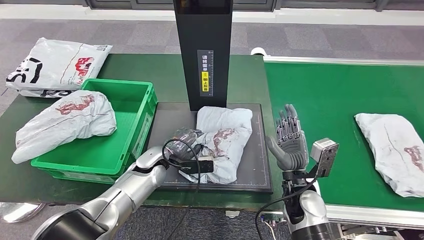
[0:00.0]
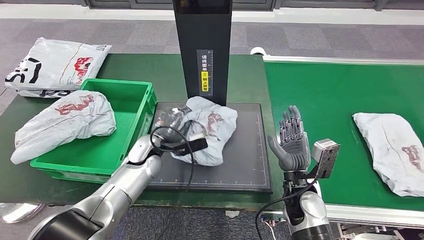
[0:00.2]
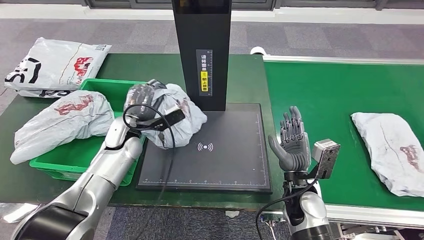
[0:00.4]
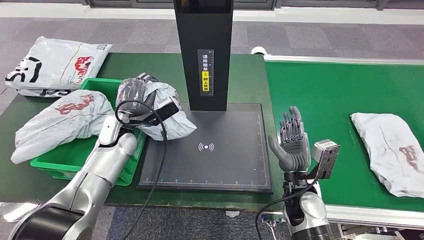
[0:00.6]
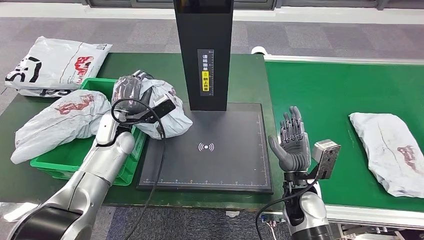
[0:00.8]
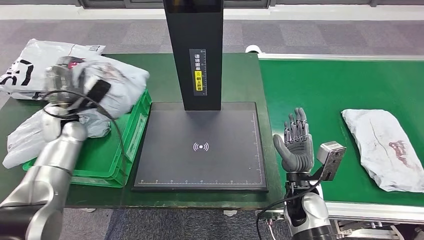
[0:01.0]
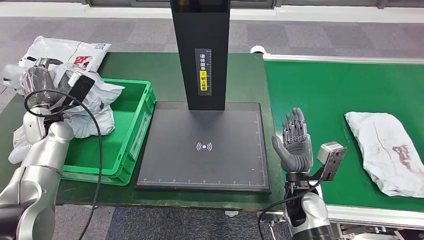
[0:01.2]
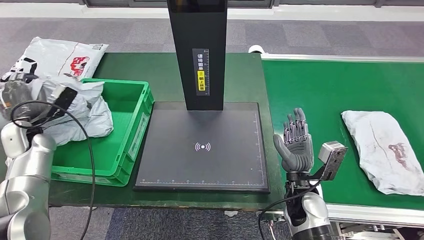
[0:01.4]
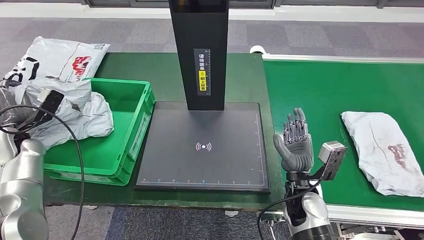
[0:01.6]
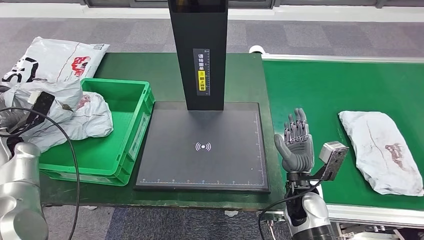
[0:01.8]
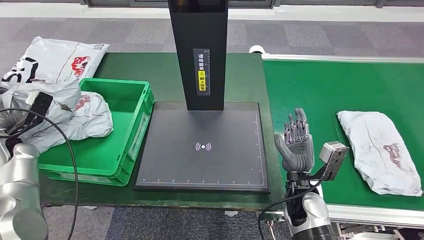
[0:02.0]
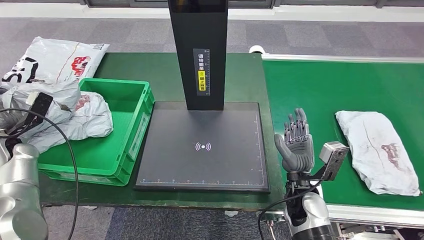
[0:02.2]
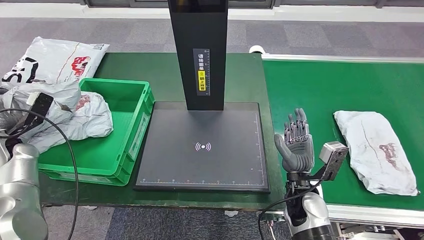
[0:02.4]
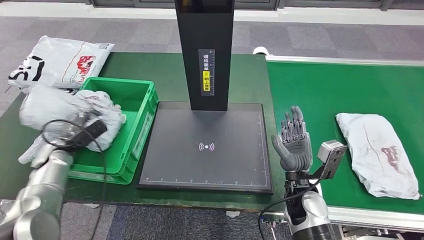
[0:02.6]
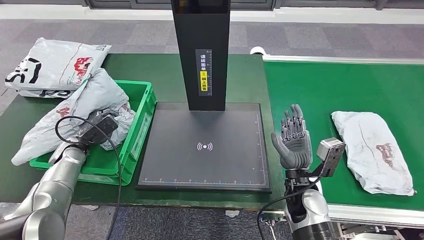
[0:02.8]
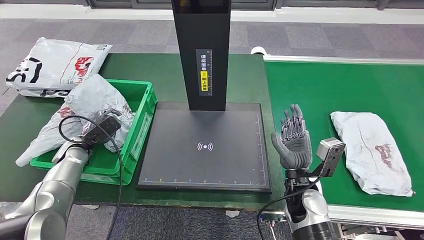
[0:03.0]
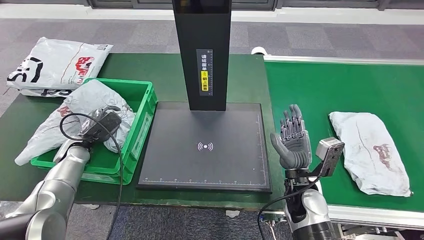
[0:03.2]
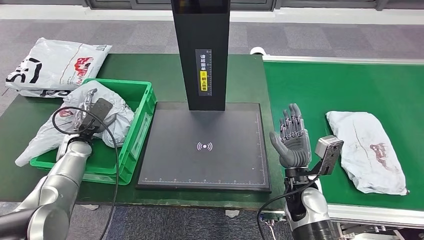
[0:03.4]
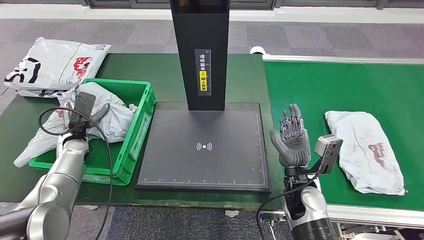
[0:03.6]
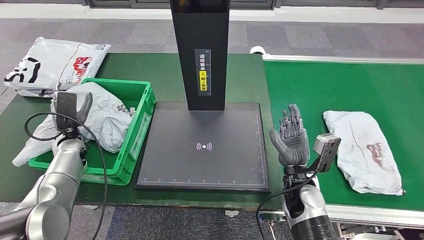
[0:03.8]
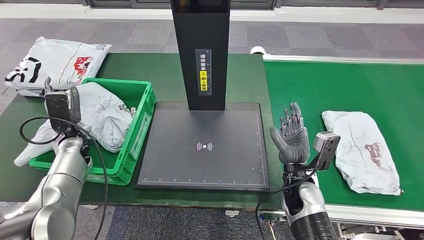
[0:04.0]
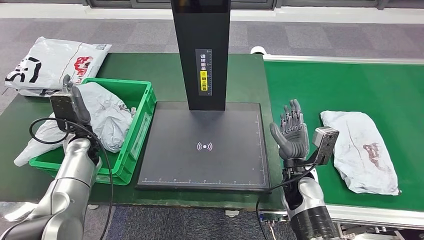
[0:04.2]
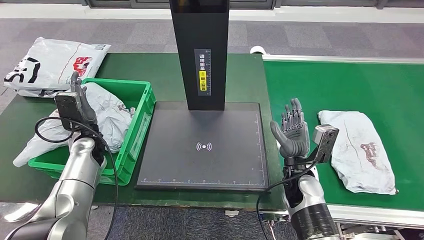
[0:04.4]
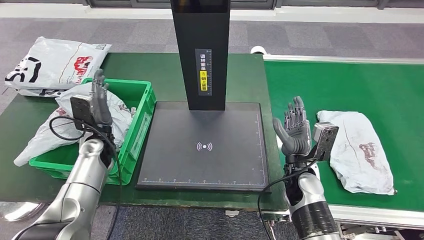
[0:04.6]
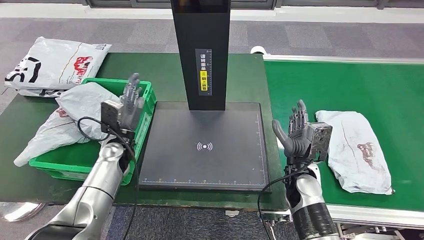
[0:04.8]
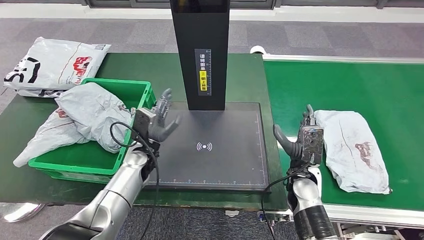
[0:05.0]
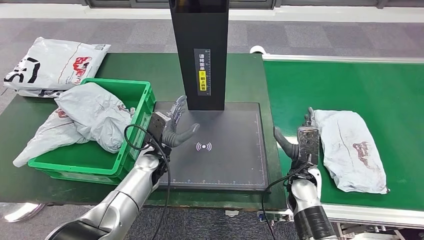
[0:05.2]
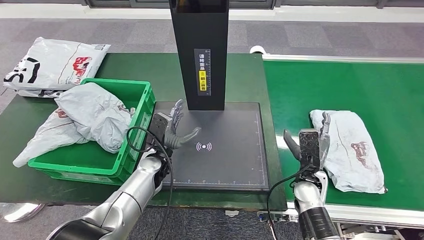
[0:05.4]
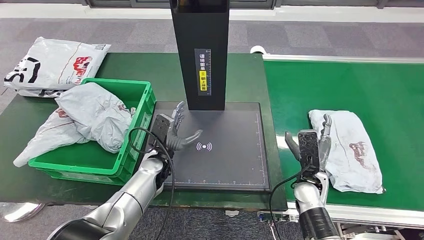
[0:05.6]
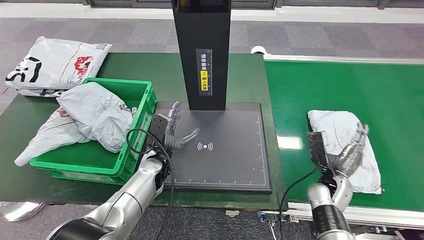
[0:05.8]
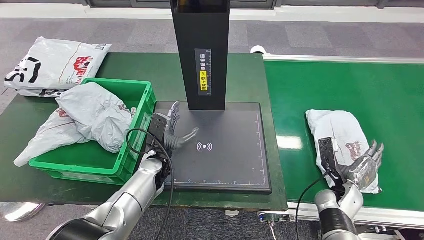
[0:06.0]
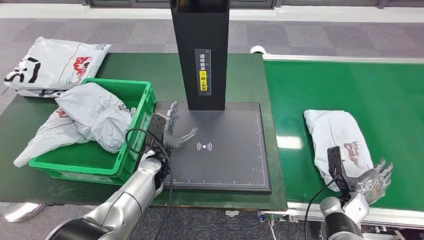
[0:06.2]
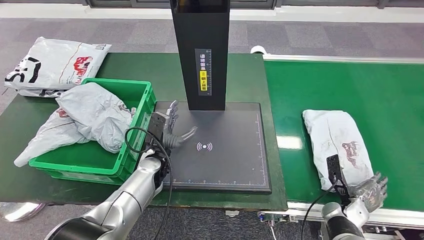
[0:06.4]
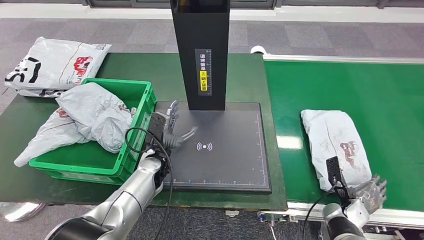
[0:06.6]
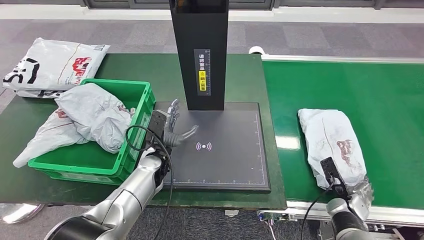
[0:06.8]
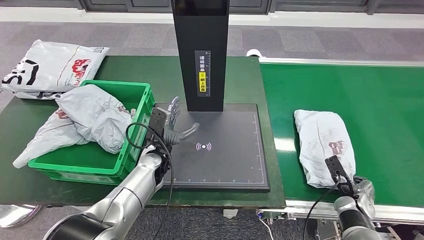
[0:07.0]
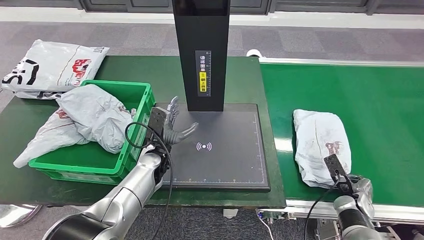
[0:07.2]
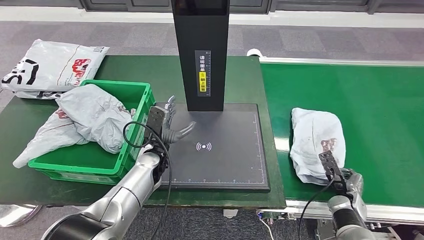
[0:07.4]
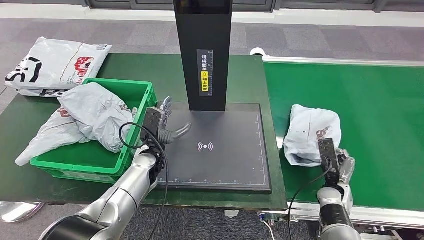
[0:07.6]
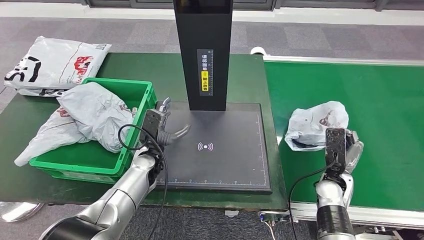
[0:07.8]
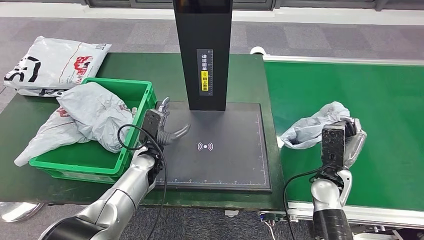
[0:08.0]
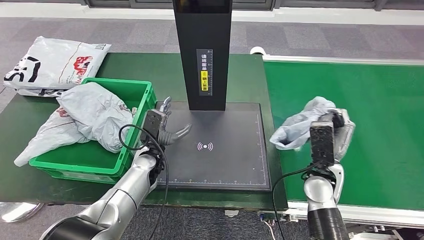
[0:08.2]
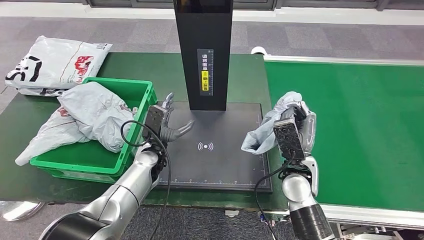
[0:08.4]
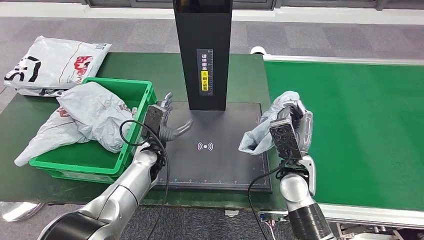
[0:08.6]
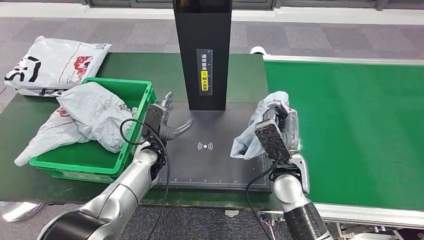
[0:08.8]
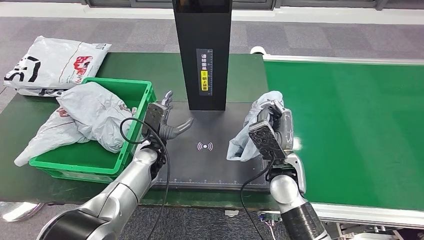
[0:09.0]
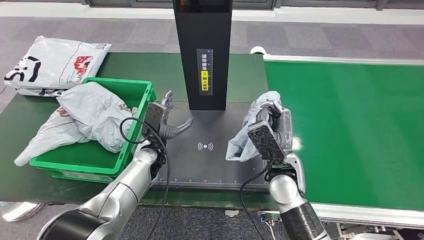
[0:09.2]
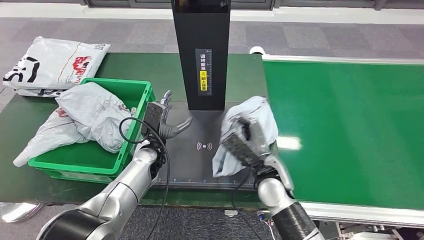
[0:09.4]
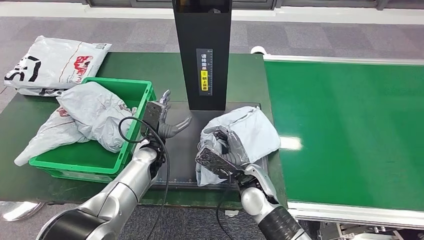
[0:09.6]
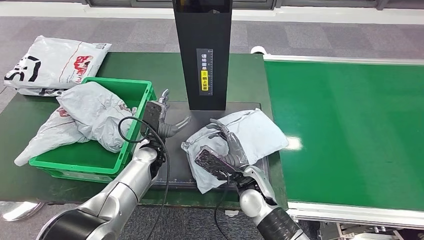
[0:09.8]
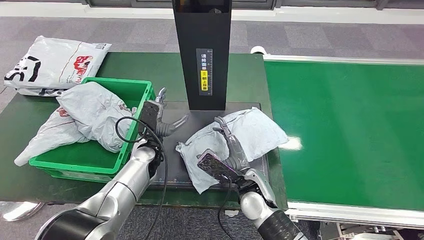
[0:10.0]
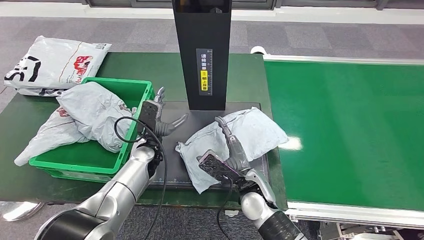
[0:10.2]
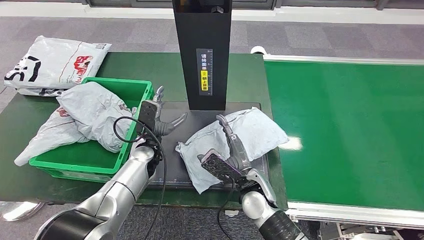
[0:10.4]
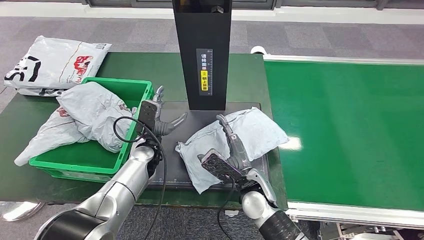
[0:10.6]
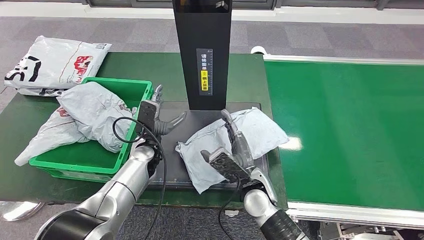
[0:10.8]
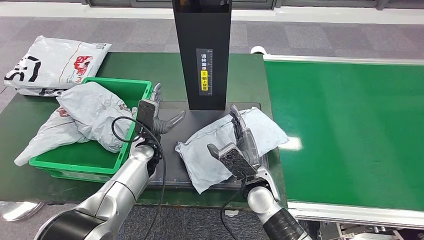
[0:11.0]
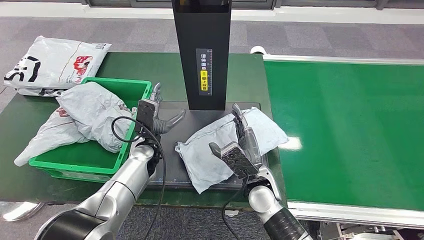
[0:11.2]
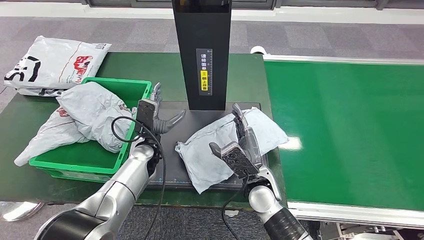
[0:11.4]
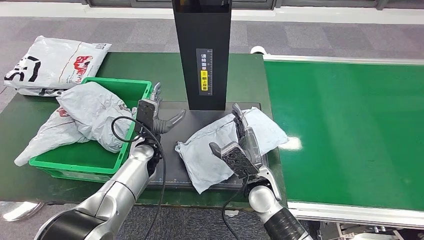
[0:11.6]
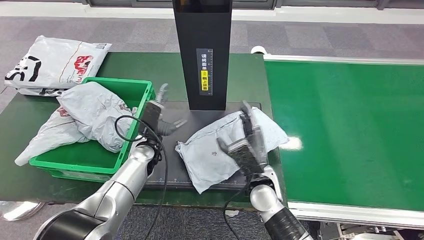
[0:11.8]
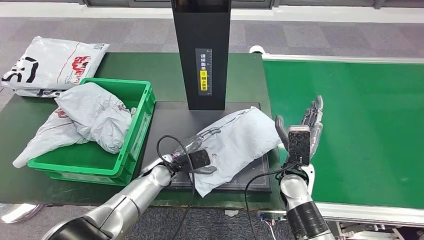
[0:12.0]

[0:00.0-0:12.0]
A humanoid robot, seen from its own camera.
Step, 0:00.8 to 0:03.8: Place the parcel into the delivery box.
Step, 0:04.0 to 0:08.0: Pick up the parcel from the conveyor belt.
Step, 0:08.2 to 0:10.6: Place the parcel onto the inbound machine.
0:09.0 to 0:10.4: The right hand travels to the left and downward by about 10 cm.

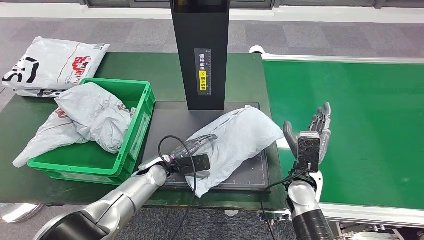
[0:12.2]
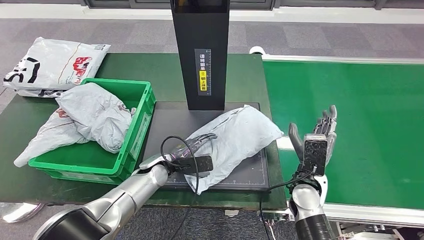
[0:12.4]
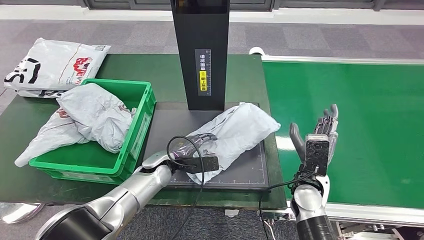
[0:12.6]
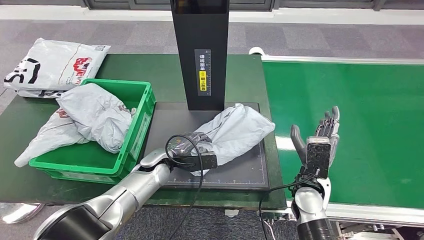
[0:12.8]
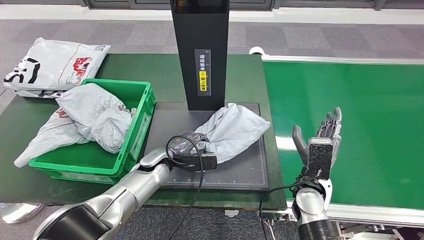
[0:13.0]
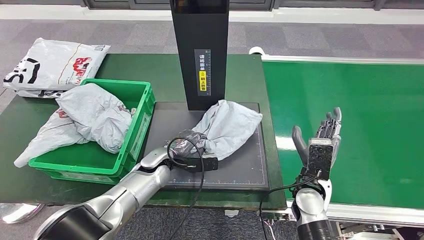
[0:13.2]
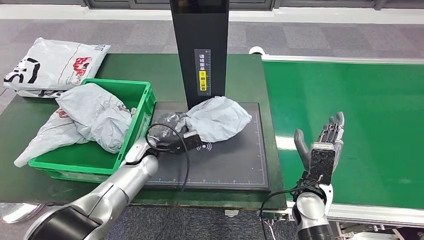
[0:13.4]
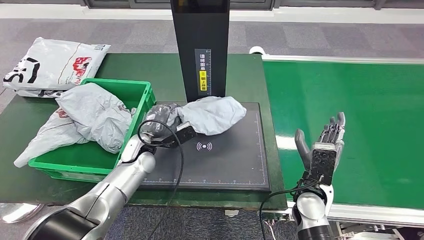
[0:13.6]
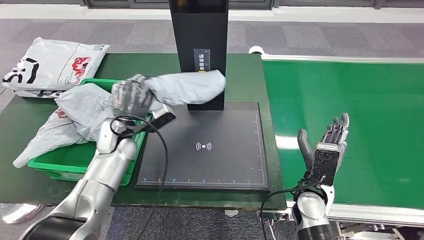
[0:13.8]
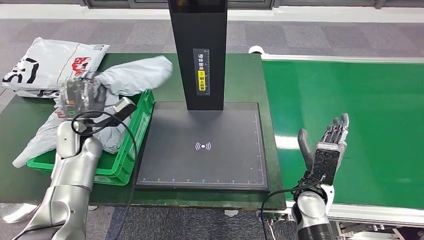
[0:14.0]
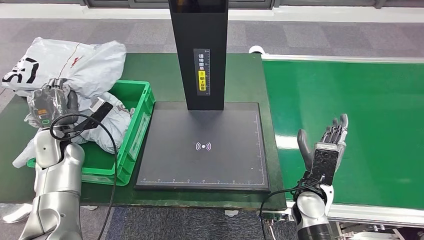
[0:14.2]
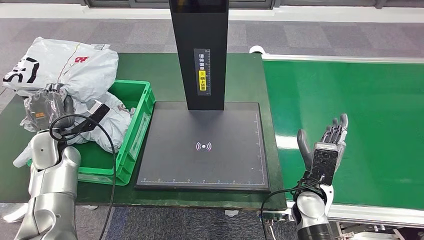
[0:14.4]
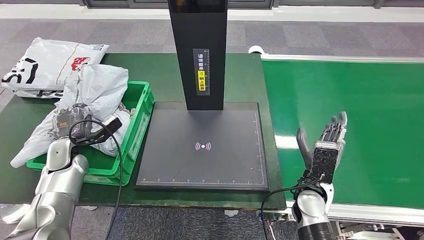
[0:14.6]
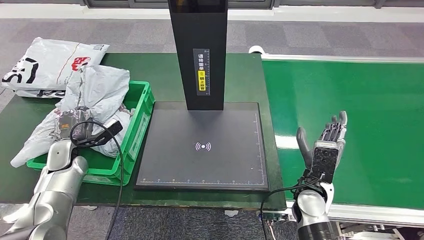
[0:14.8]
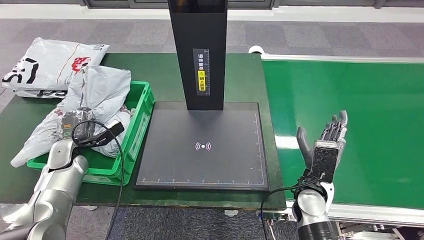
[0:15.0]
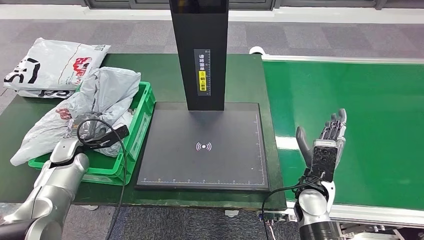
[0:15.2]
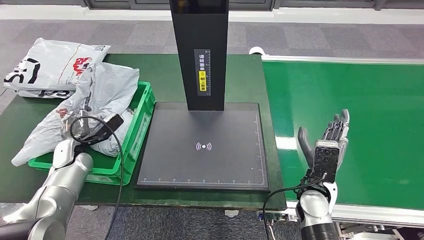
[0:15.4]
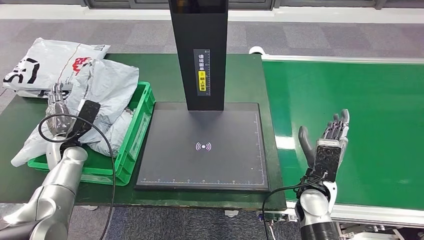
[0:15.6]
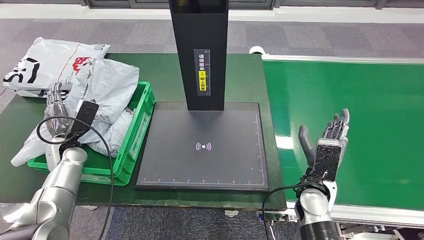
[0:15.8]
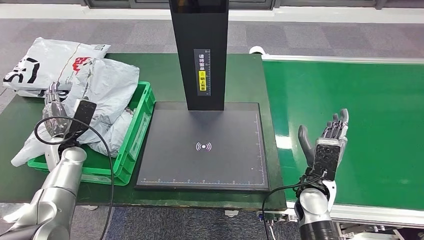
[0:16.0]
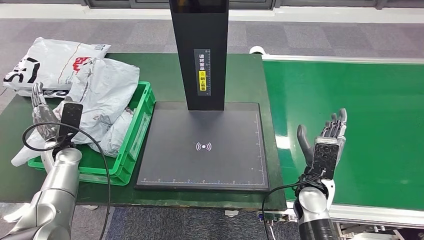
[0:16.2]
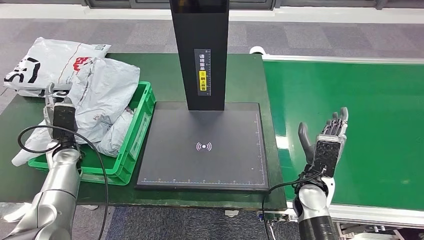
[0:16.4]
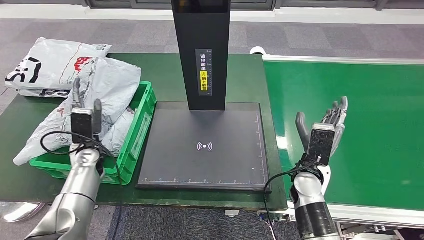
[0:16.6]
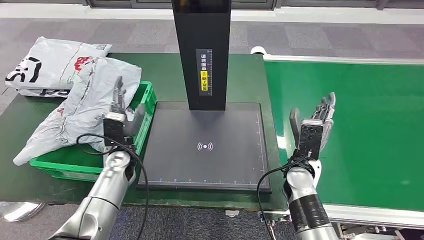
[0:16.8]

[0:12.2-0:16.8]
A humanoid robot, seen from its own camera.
Step, 0:12.2 to 0:14.0: Pick up the parcel from the inbound machine.
Step, 0:14.2 to 0:16.6: Place the parcel into the delivery box.
